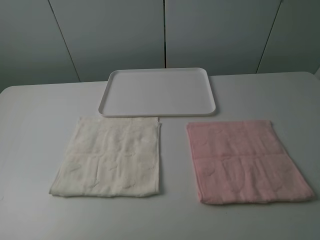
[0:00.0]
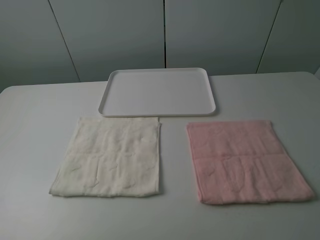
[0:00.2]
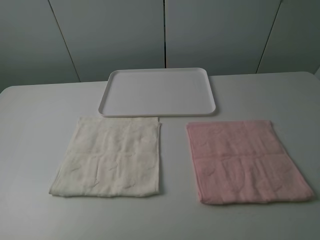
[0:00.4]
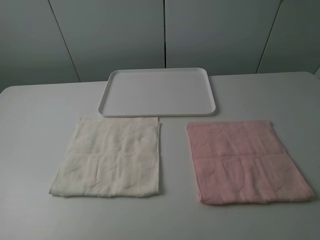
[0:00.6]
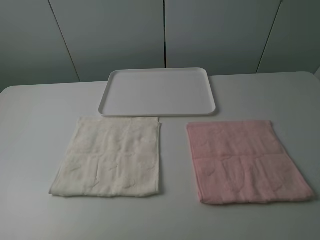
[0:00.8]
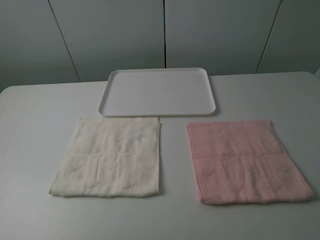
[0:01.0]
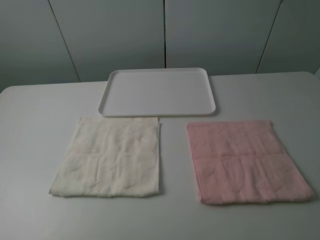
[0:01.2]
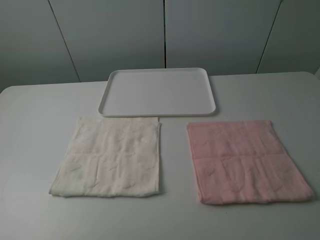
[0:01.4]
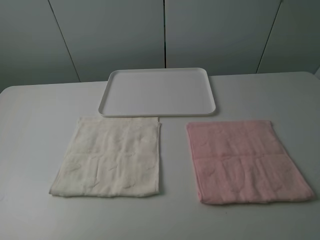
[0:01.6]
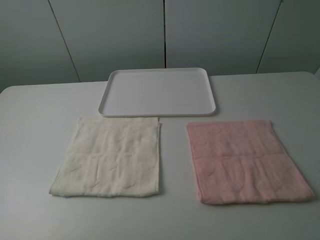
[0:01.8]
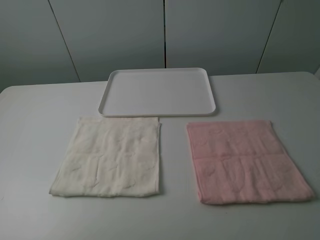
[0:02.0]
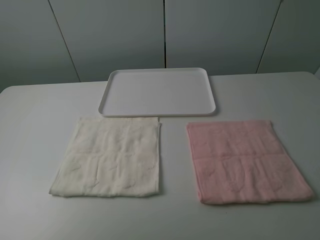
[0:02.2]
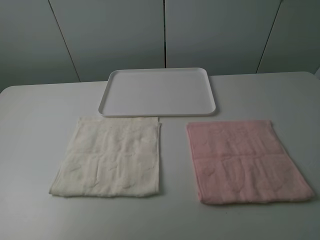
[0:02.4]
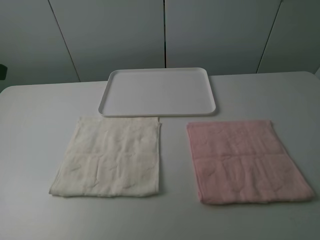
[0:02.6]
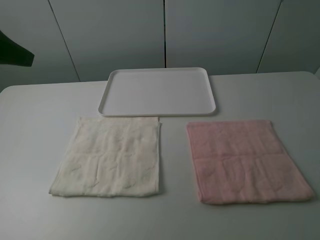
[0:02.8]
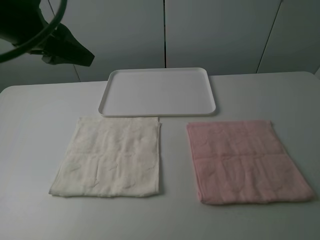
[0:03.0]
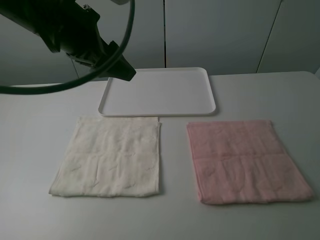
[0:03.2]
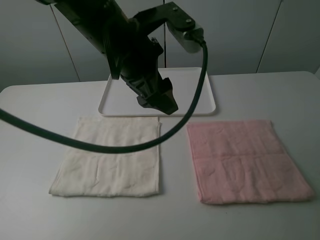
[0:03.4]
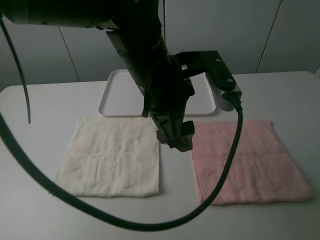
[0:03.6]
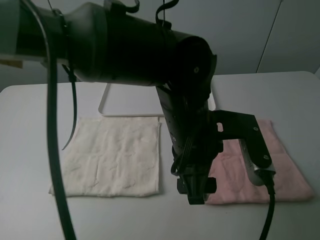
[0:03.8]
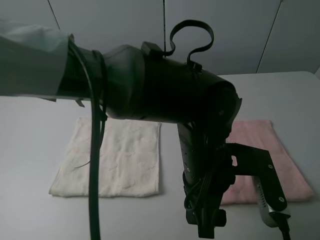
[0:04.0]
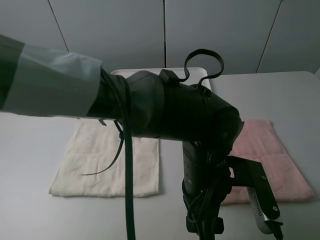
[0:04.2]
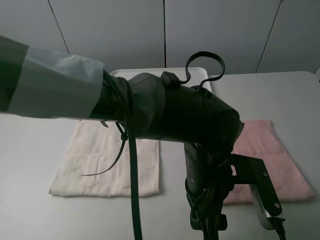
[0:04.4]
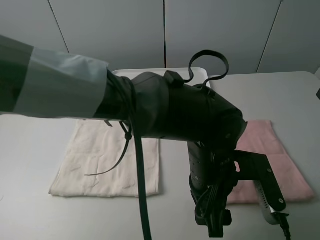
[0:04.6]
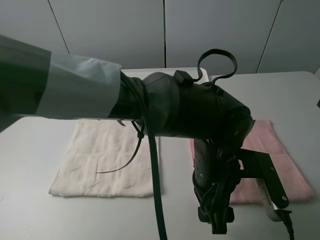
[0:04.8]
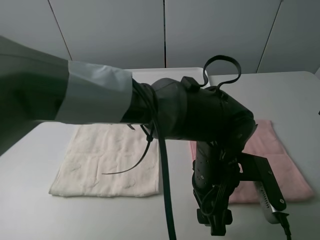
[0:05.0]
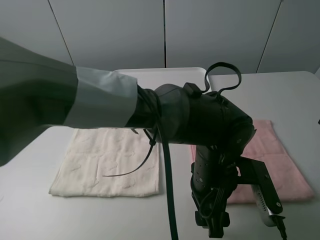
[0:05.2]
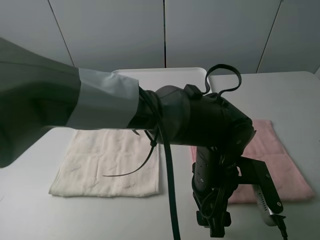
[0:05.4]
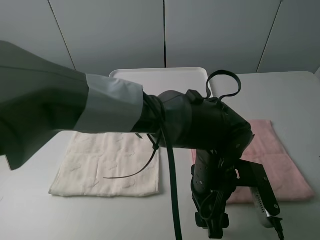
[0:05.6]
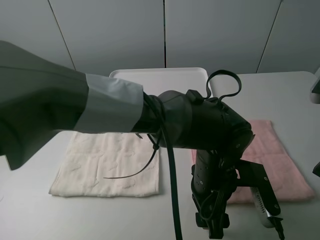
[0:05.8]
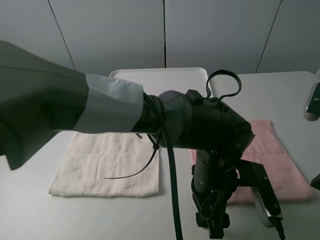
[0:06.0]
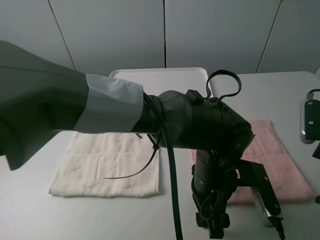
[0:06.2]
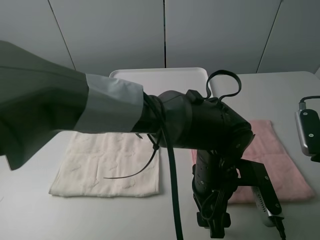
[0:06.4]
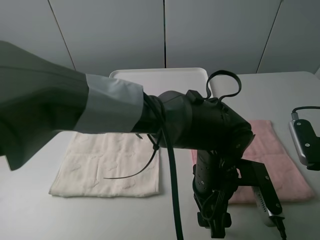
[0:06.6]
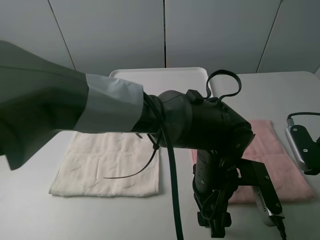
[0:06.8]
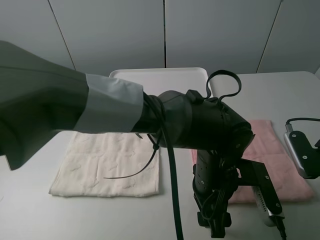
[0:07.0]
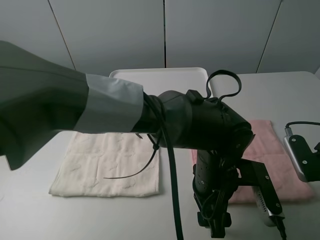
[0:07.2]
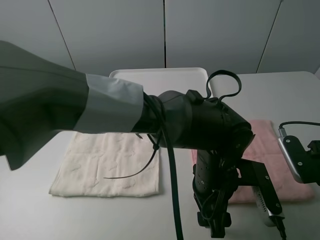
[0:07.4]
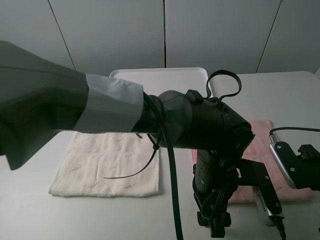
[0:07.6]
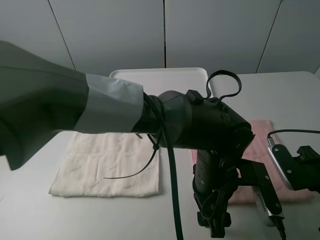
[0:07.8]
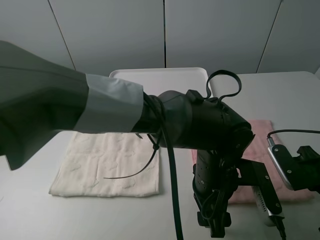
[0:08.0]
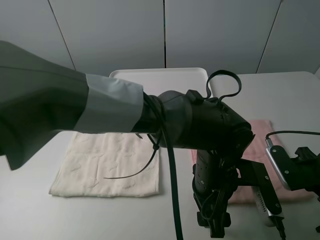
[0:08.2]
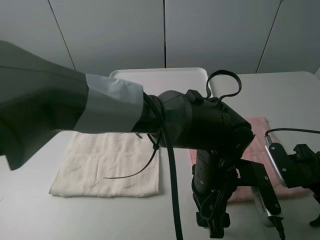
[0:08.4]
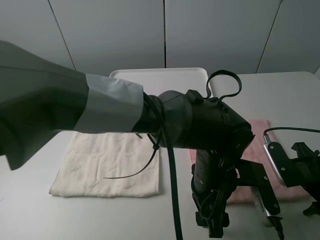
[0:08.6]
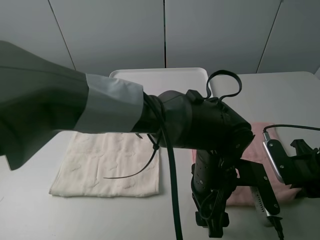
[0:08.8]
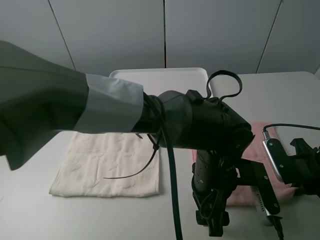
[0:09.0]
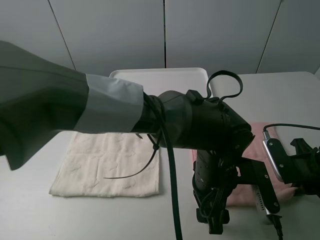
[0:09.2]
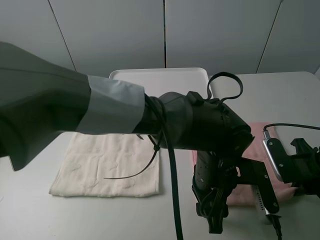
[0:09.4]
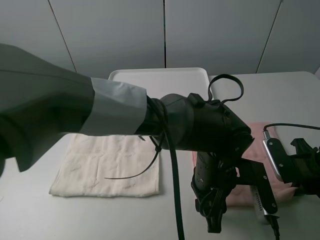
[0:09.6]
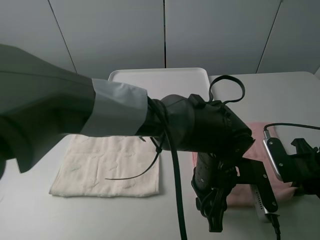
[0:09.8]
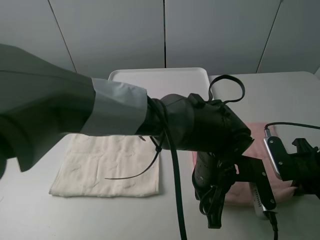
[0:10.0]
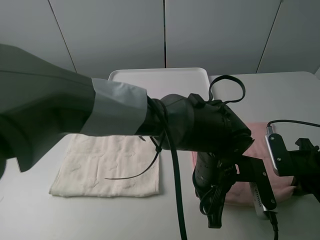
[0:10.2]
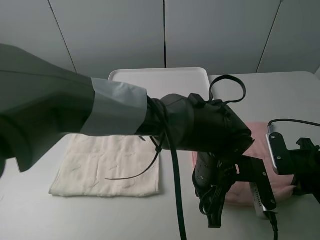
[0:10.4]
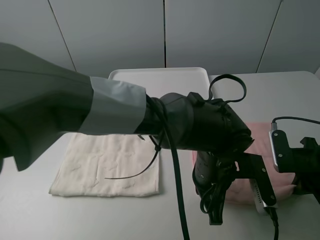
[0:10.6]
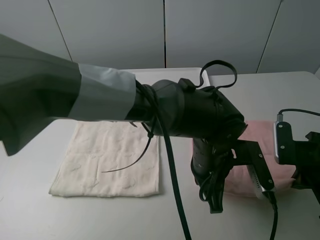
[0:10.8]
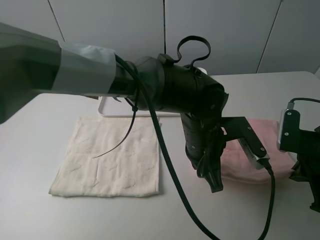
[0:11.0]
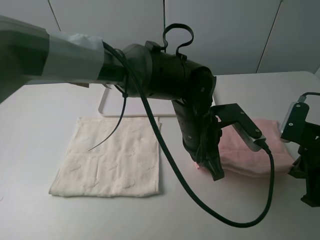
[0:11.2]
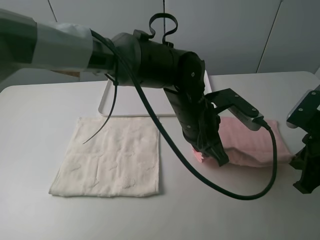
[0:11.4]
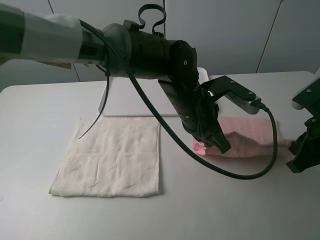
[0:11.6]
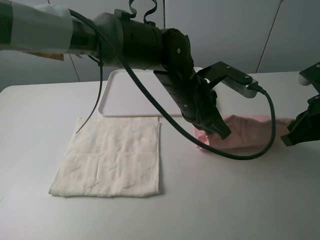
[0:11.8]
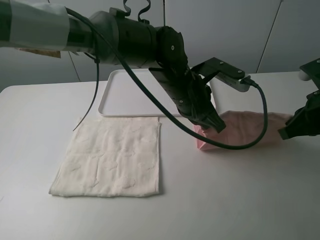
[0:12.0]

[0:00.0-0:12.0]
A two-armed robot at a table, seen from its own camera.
Task of the whole recording: fold one of the towels by two grippers and place it on the tray,then fold another towel by two grippers and place it on the folded towel.
Step, 0:00.0 to 0:10.2: Grasp the pink towel with the left gripper.
0:00.0 to 0:01.6: Neither gripper changes place.
0:01.6 to 0:03.0: The left gripper shifts about 30 cm forward and to the right.
0:03.0 to 0:04.4: The right gripper moves downward, roughly 5 cm. Meanwhile the left gripper goes about 35 cm to the right and downward.
0:04.4 to 0:06.0: The right gripper travels downward by some 15 cm.
0:06.0 to 0:07.6: The right gripper moves downward, about 5 cm.
0:07.6 to 0:09.0: The right gripper closes up.
0:09.0 to 0:10.4: The left gripper closes its fingers.
0:10.4 to 0:12.0: The right gripper is displaced upward by some 10 cm; the left gripper travels forward and upward by about 15 cm.

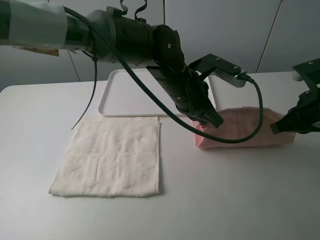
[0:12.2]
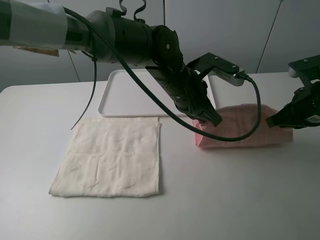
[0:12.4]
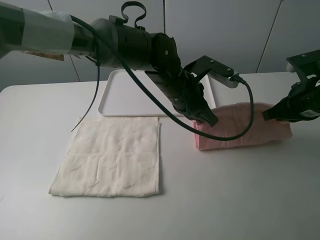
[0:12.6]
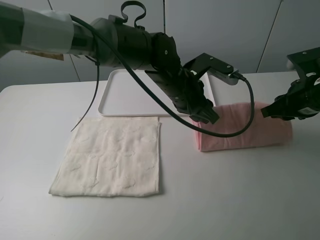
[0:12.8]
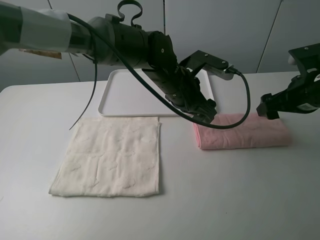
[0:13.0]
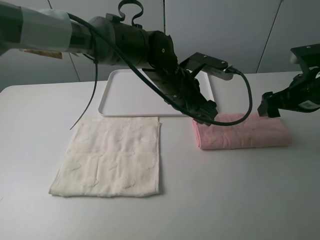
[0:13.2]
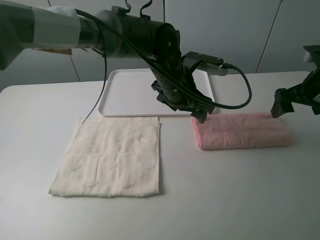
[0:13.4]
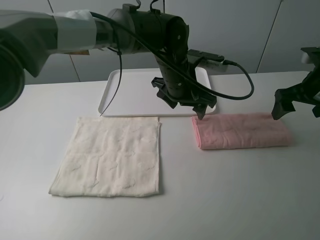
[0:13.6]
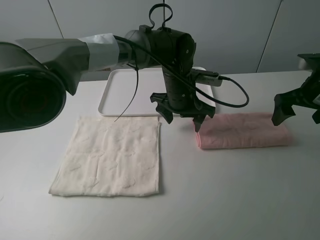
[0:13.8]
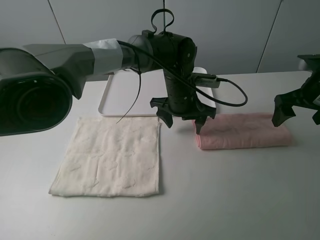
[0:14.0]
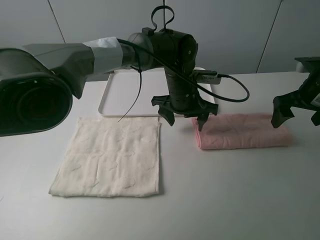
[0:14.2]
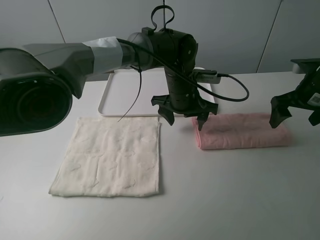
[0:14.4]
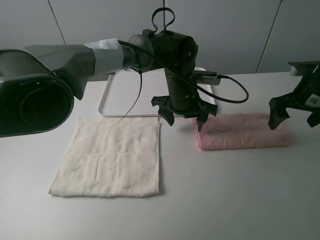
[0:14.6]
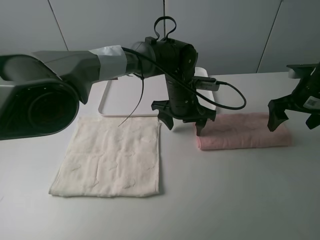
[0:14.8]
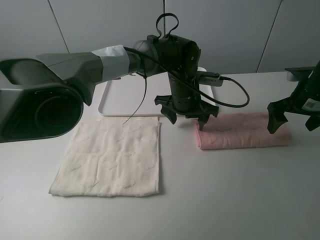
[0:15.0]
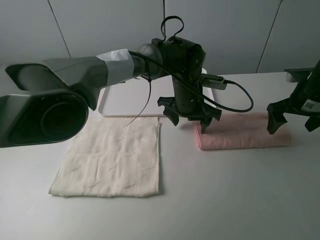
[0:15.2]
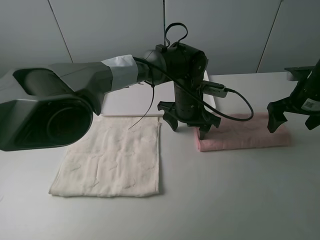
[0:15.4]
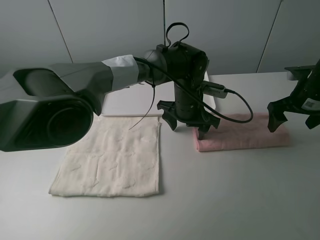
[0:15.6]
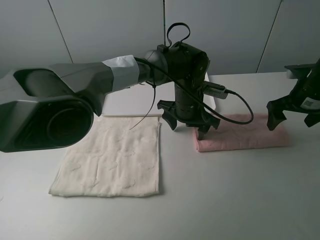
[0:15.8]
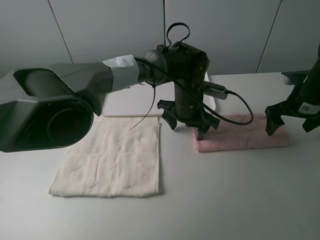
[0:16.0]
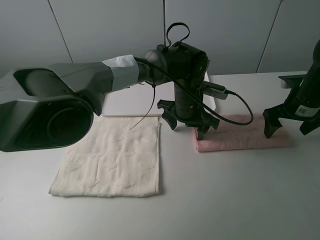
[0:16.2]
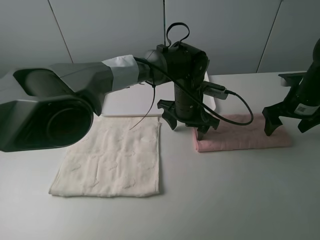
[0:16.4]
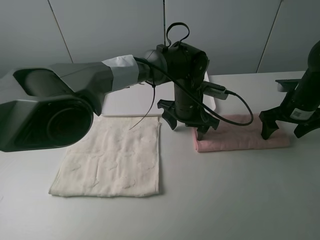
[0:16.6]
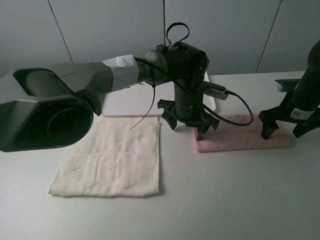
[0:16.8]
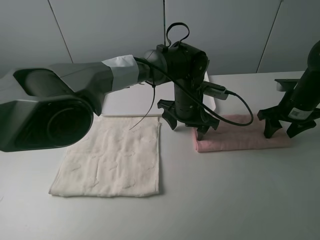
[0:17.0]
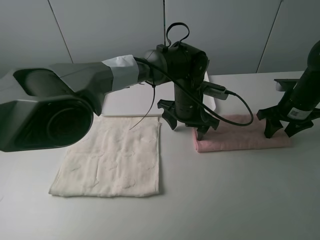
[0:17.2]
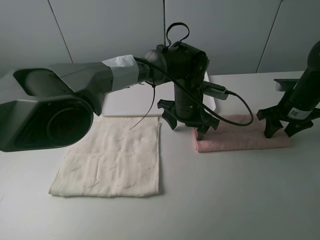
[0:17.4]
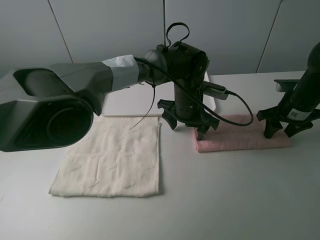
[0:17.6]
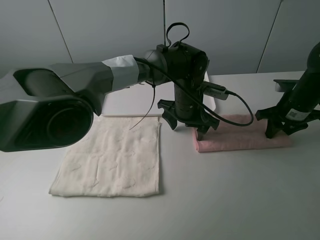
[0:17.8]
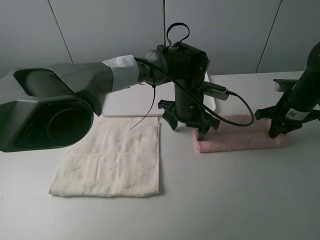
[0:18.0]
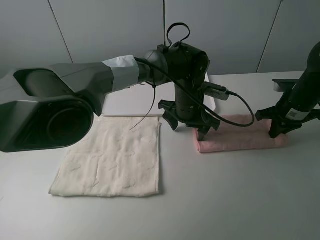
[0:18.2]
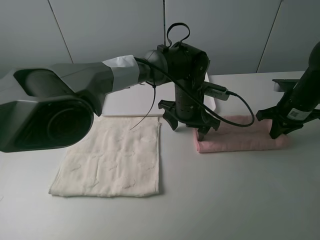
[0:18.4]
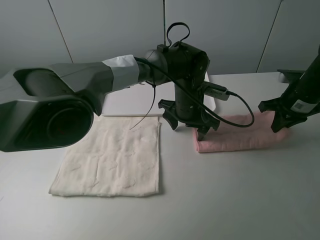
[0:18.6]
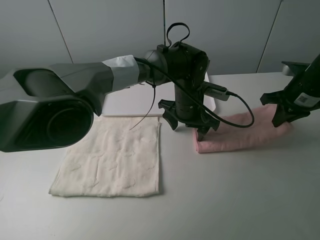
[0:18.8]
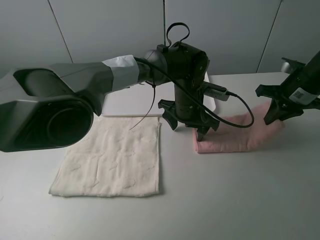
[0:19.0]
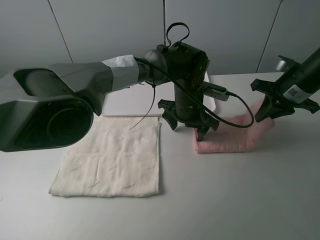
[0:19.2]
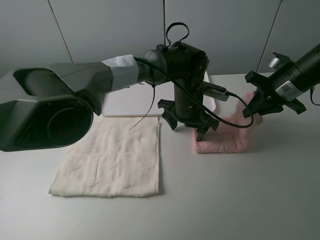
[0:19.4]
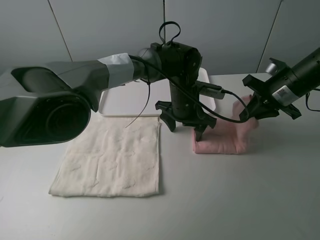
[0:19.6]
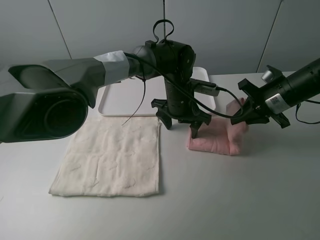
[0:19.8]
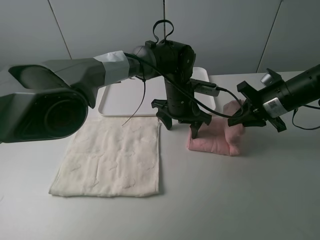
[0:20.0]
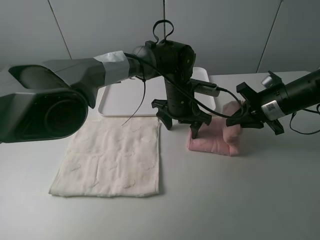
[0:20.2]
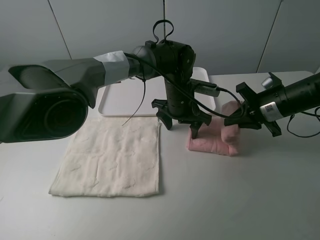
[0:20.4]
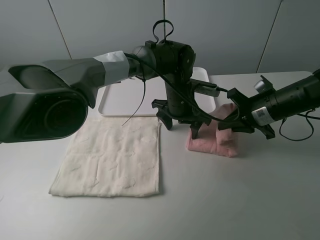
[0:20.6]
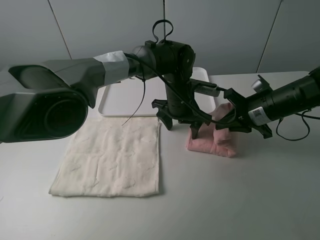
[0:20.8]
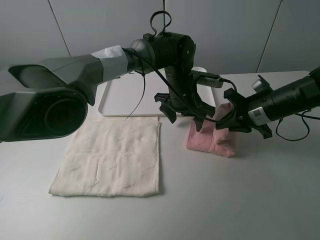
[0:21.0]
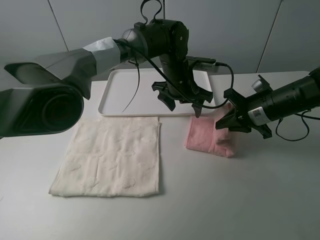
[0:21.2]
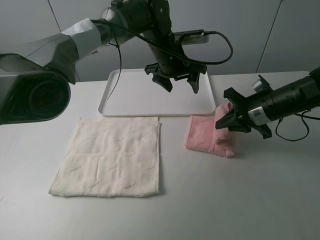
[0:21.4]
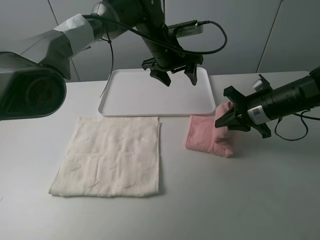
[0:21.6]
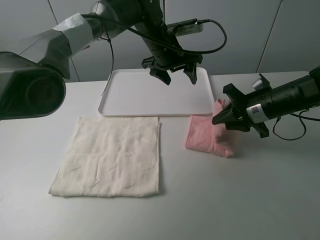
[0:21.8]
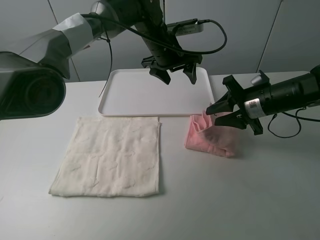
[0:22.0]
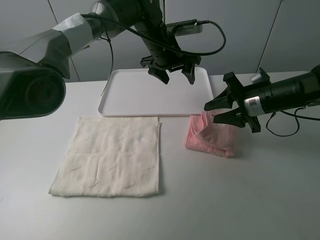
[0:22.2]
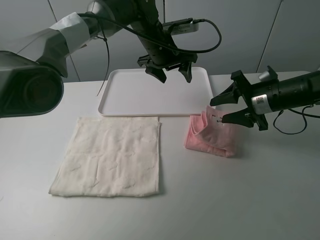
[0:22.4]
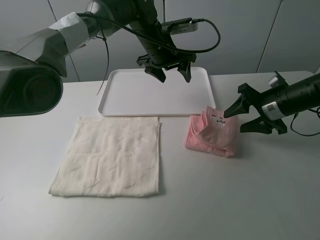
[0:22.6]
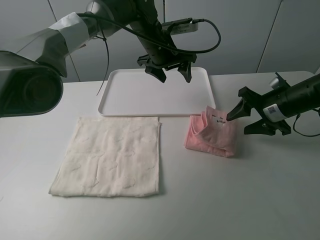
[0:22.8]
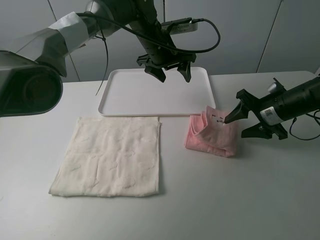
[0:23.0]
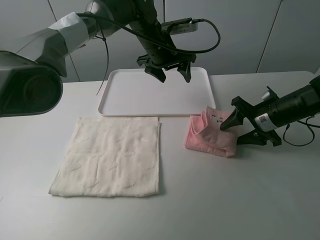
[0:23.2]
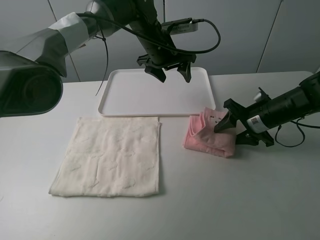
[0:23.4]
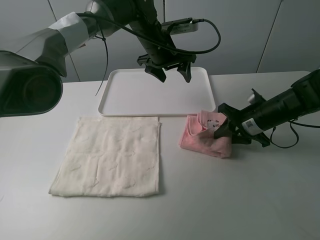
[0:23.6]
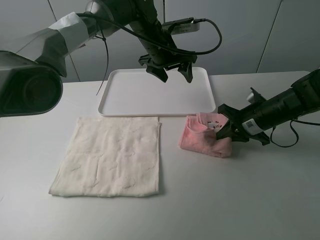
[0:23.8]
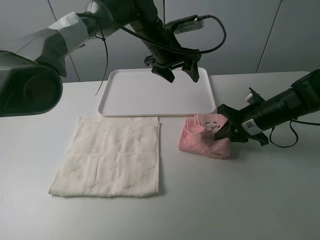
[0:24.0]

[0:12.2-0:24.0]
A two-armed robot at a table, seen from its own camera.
Task of the whole recording: fold one of the towels by two grippers and place it on the tray,then fold another towel by two grippers and place it on the folded towel.
Step, 0:13.6 to 0:16.0: Press the pink towel with the left gripper.
Step, 0:16.2 to 0:18.0: Grasp the pink towel with the right gripper.
Step, 0:18.2 to 0:22.2: Fold the pink towel from right to left with right gripper.
Step, 0:22.4 to 0:23.8: Grasp the pink towel with the right gripper.
0:12.2 to 0:13.6: The left gripper opens, while the right gripper shifts roughly 5 cm forward, and opens up.
0:13.6 to 0:15.2: The left gripper shifts some 5 cm downward. Meanwhile the right gripper changes place by some 5 cm.
0:15.2 to 0:16.6: The grippers stay close to where they were, moving slightly.
0:16.6 to 0:18.2: The right gripper closes up.
0:18.2 to 0:19.6: The right gripper goes approximately 5 cm upward.
0:19.6 to 0:21.0: The right gripper changes place by roughly 5 cm.
0:21.0 to 0:22.6: The left gripper moves upward, forward and to the left, some 10 cm. The right gripper opens its fingers.
0:22.6 to 0:24.0: The right gripper changes place by roughly 5 cm, and closes its fingers.
